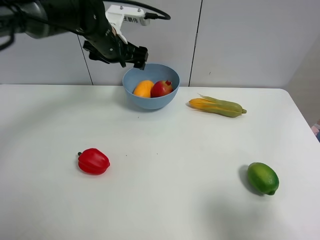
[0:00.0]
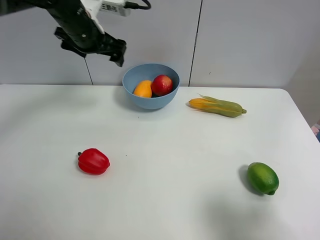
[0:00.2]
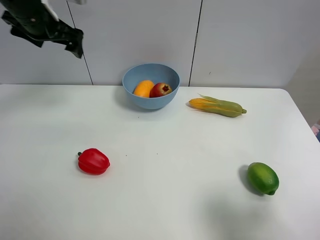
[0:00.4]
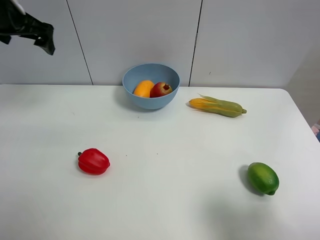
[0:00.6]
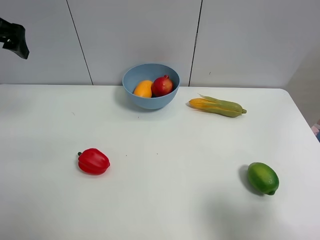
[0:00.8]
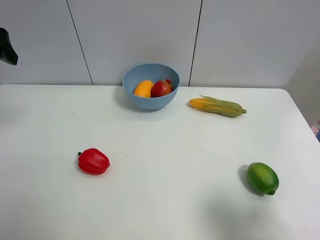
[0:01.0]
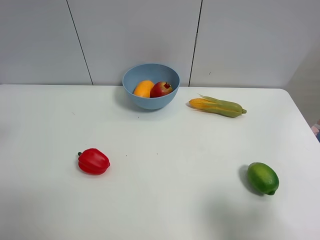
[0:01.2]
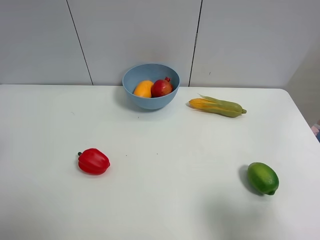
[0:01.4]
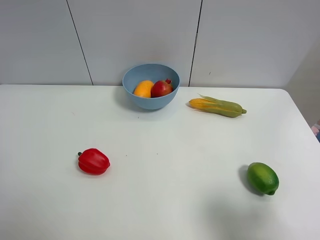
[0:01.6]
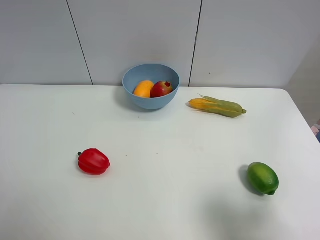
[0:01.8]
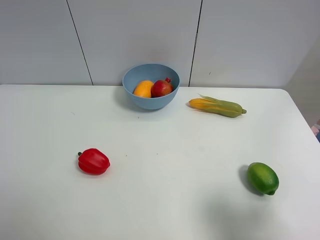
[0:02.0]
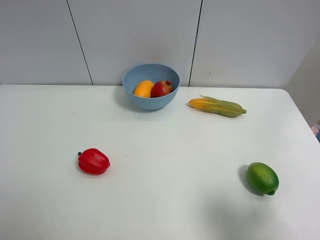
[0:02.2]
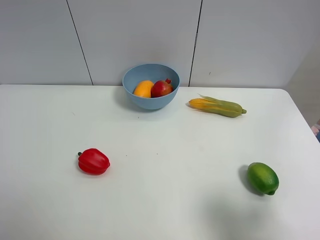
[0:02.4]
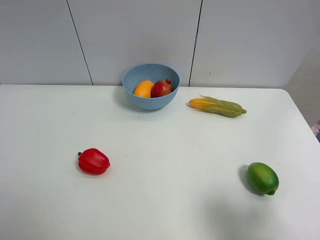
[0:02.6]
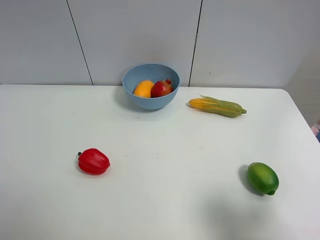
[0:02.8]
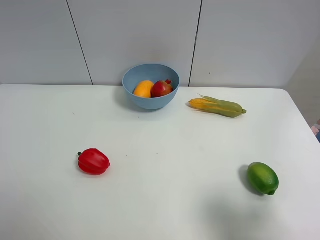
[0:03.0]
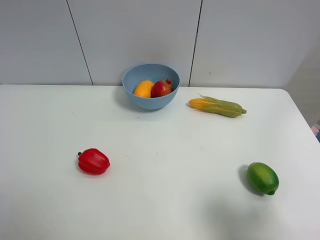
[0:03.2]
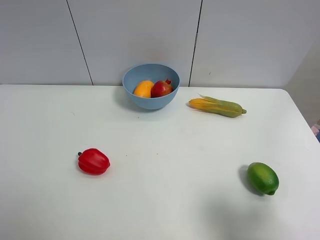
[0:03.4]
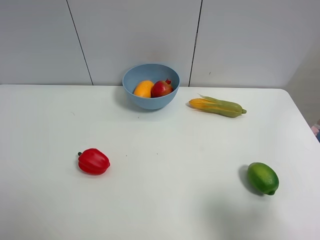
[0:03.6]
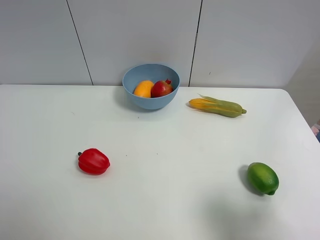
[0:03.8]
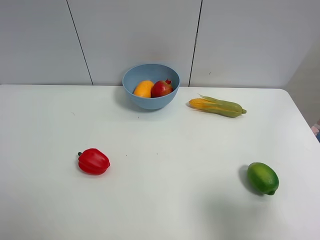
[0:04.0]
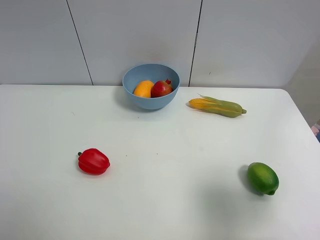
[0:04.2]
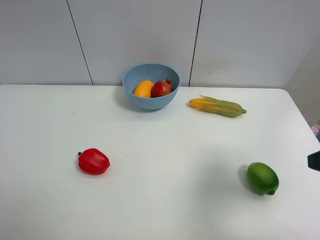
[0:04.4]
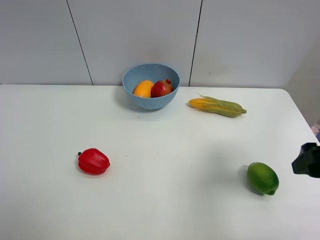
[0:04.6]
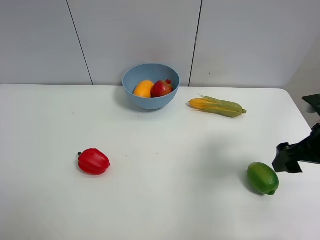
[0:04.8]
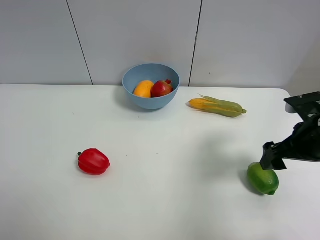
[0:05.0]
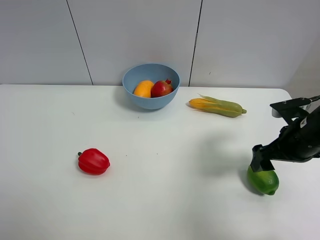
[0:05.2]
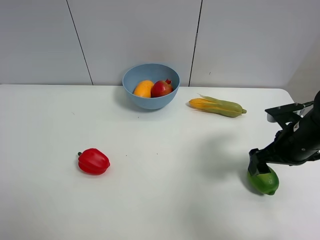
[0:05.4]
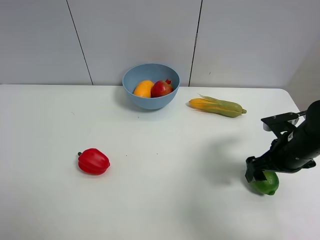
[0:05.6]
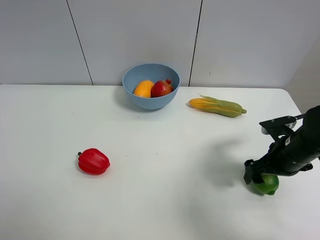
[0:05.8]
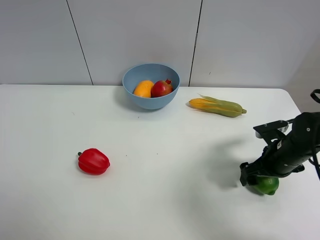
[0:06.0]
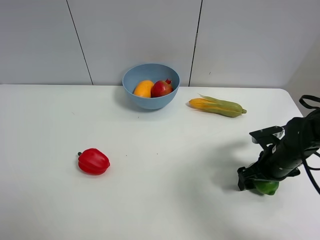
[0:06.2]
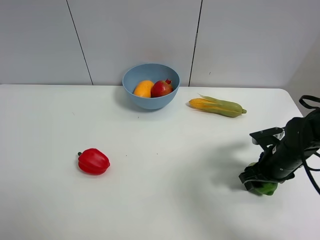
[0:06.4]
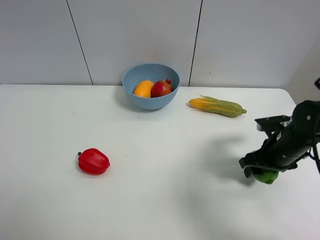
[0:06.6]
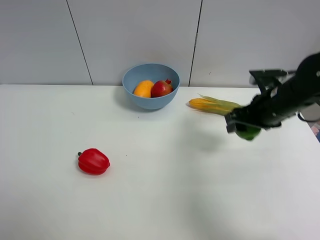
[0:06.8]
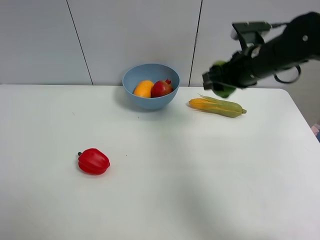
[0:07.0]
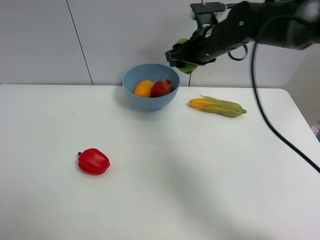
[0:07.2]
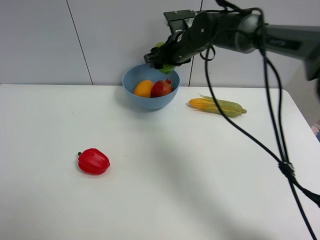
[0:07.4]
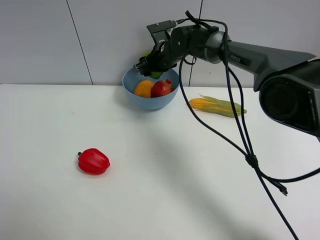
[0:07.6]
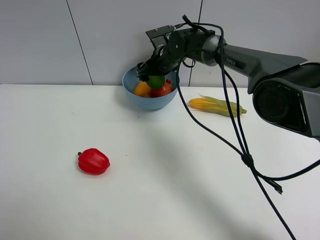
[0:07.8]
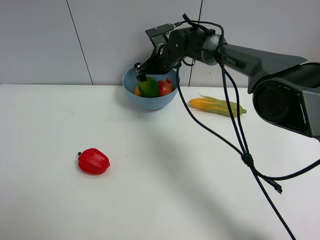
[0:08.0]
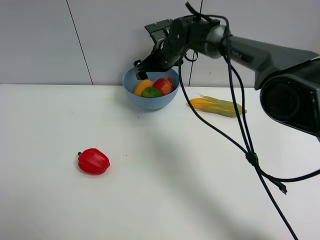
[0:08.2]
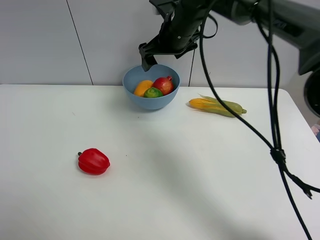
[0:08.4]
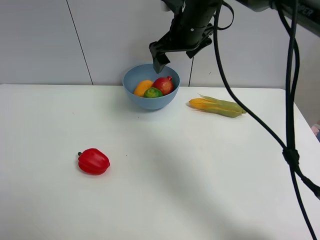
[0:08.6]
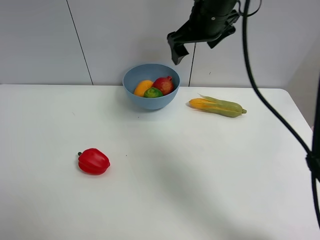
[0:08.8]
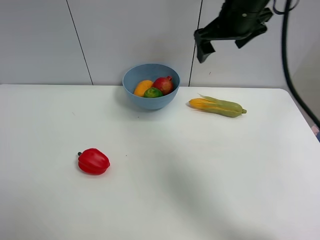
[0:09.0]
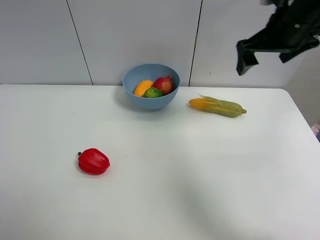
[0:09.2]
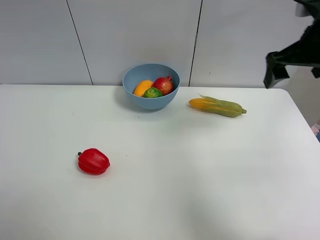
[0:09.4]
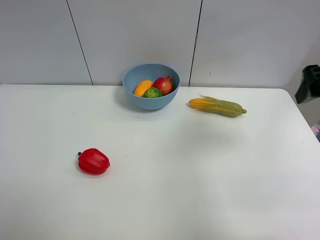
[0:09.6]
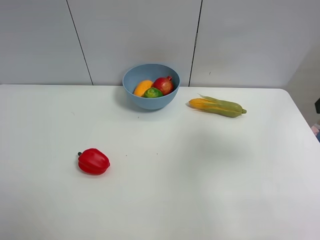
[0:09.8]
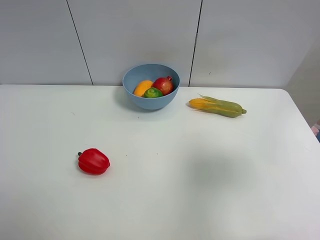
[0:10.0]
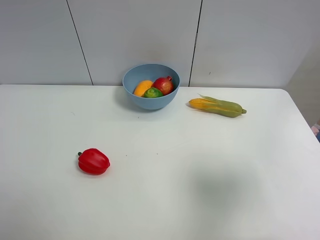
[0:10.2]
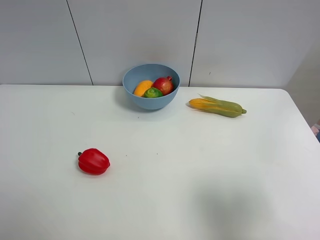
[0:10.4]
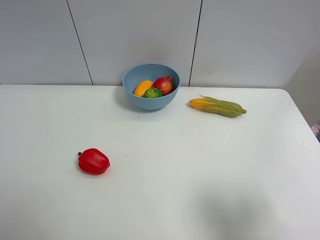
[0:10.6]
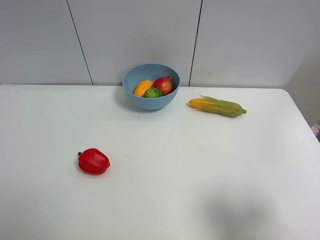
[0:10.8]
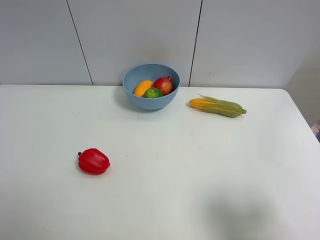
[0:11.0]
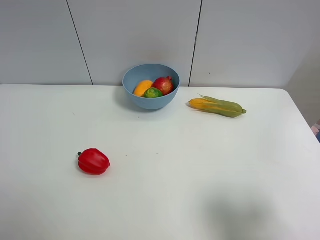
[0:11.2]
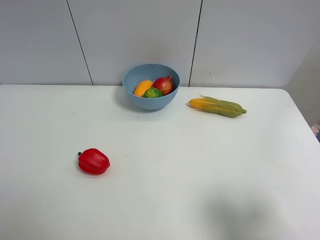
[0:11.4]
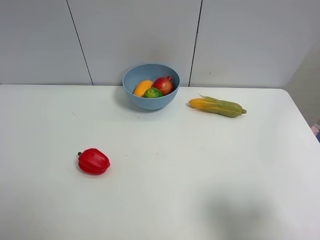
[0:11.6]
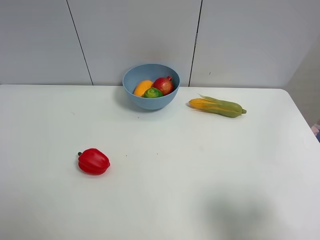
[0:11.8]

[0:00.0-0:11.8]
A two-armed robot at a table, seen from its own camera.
Task of the whole recording: Put the three fruits on the table into a bowl.
Step, 0:00.0 to 0:06.4: Grasp the green lemon with right gripper.
Step, 0:06.6 to 0:08.2: Place the green lemon in the blue bowl with right gripper.
0:00.0 to 0:01.4: The left gripper shifts roughly 35 cm backward and to the left.
0:03.0 to 0:04.4: The right gripper heads forward, covering roughly 10 cm.
0:04.4 to 0:06.0: The right gripper goes about 20 cm downward and forward.
0:06.0 to 0:07.4: The right gripper shifts about 35 cm to the left, forward and upward, and closes its fingers.
0:07.4 to 0:08.8: The right gripper is displaced upward and backward by roughly 15 cm, and opens.
0:08.8 to 0:10.4: The right gripper goes some 40 cm backward and to the right.
